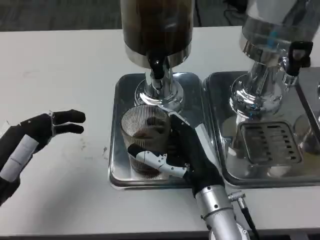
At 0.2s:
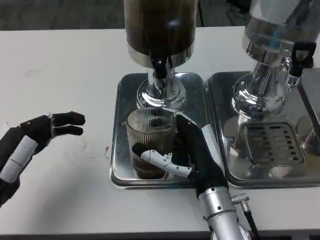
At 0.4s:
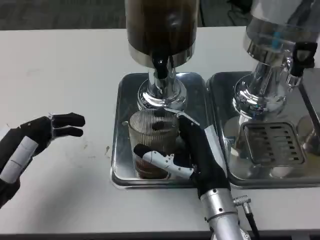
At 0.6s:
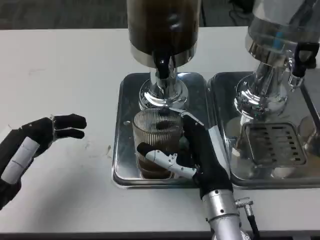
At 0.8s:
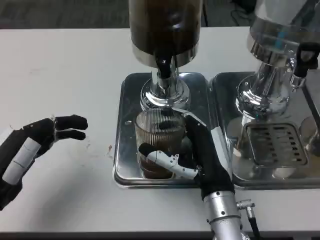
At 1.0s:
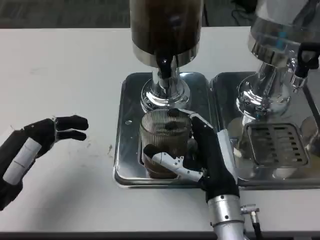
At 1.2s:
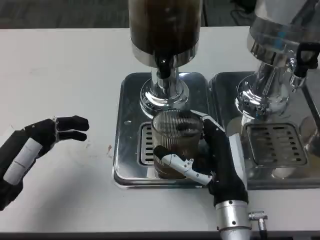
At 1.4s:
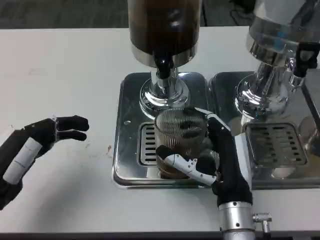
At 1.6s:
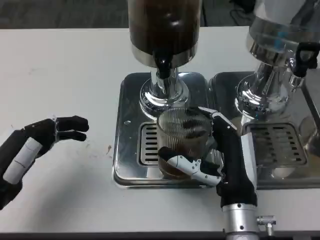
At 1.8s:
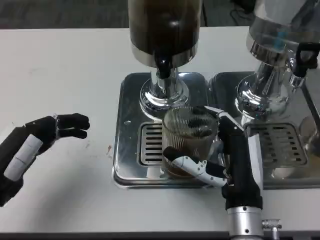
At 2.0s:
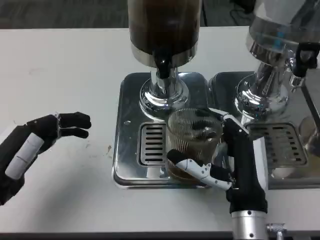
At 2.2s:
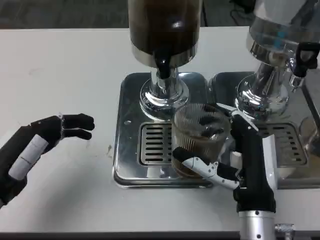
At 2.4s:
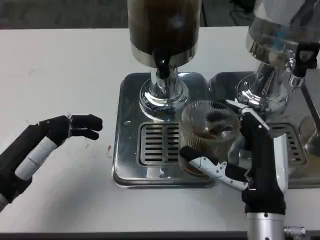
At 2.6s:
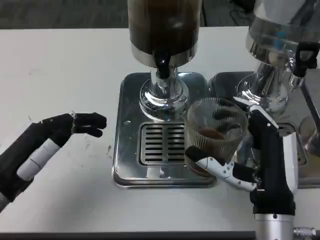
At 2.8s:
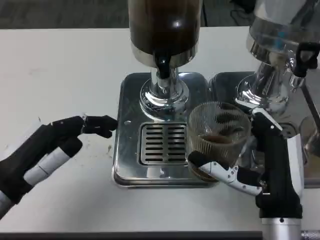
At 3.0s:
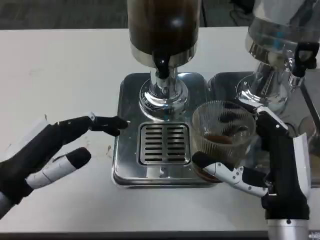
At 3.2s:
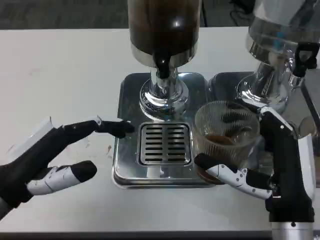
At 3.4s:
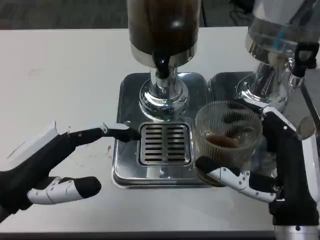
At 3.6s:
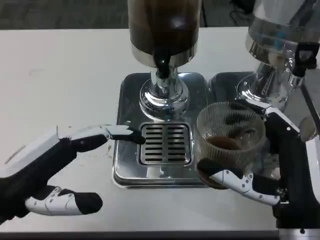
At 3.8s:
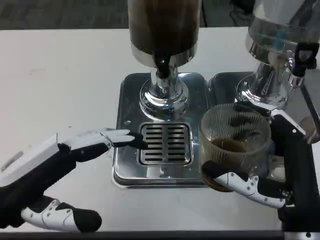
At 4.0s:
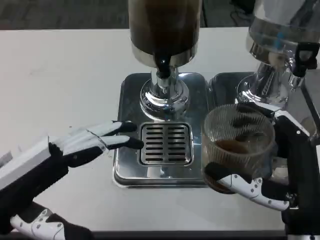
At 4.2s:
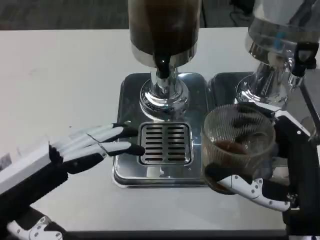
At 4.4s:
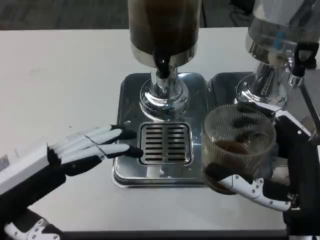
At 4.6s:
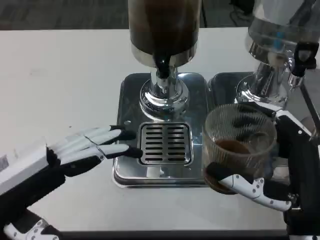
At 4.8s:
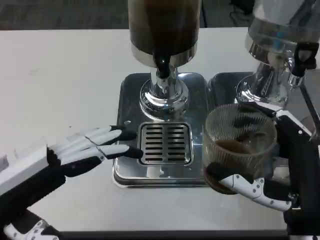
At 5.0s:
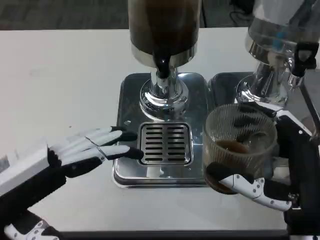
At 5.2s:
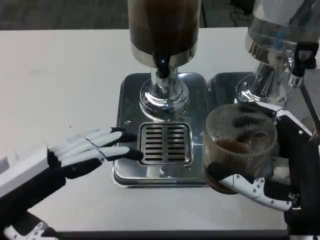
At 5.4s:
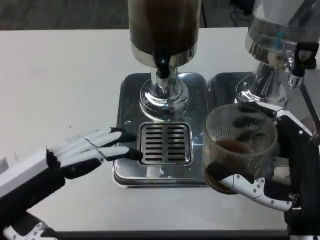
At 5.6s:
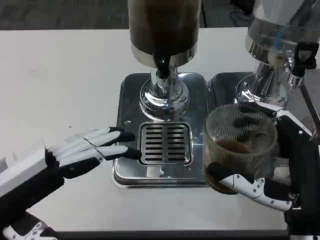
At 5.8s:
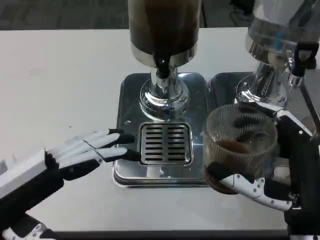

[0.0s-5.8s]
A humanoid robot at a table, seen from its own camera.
Task of the whole recording: Grasp the cup under the faucet to collect the drink, then remove the cup.
1.4s to 2.8s: The right hand shifts by approximately 5 cm.
2.8s to 4.4s: The left hand moves upward, about 5 cm.
4.4s to 5.8s: Neither hand changes place.

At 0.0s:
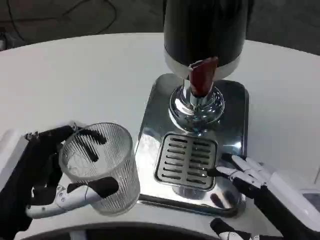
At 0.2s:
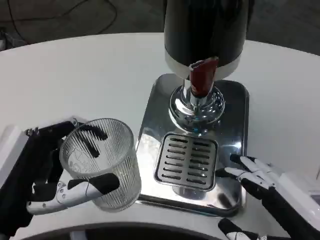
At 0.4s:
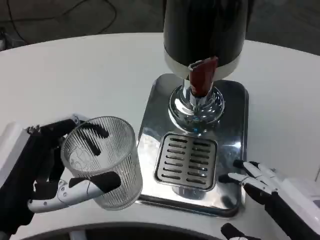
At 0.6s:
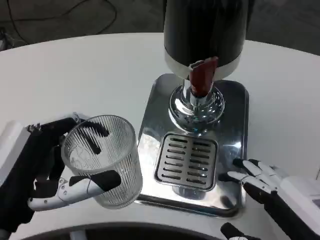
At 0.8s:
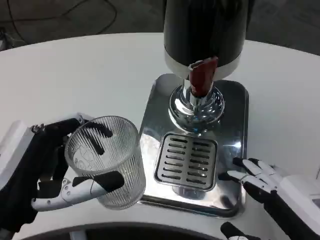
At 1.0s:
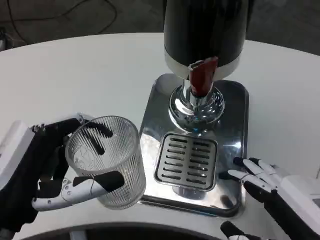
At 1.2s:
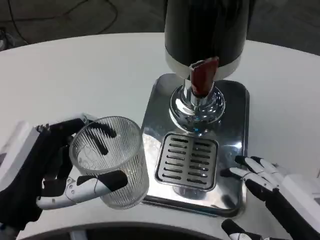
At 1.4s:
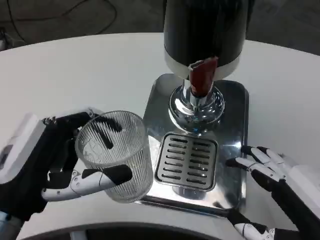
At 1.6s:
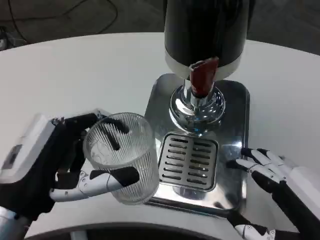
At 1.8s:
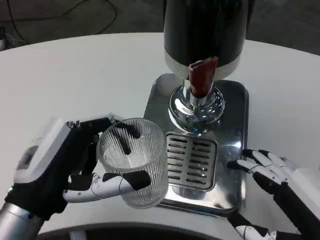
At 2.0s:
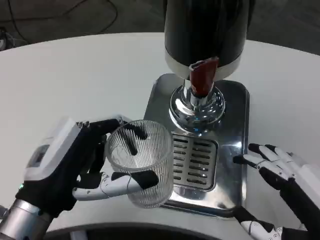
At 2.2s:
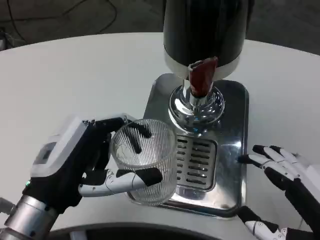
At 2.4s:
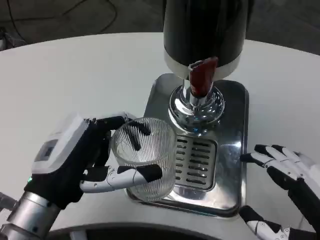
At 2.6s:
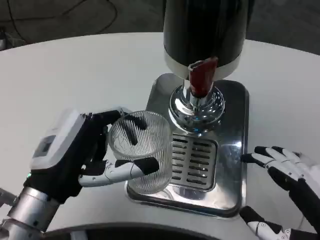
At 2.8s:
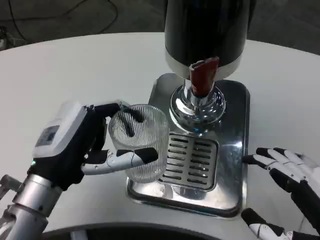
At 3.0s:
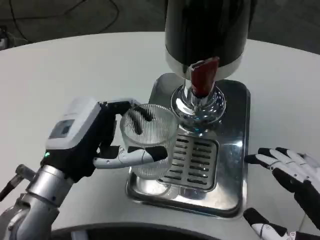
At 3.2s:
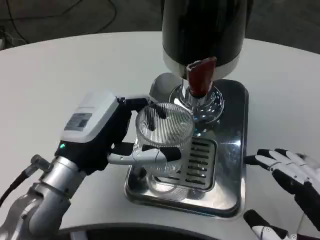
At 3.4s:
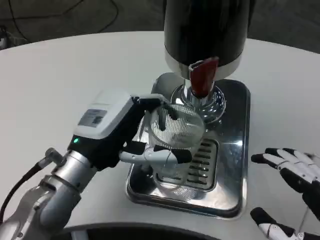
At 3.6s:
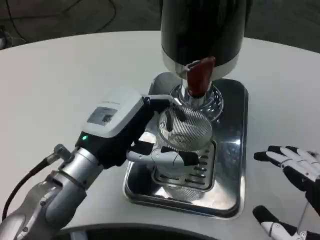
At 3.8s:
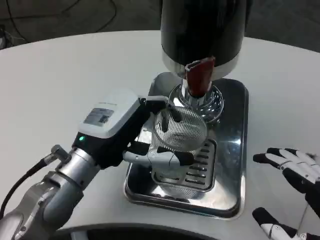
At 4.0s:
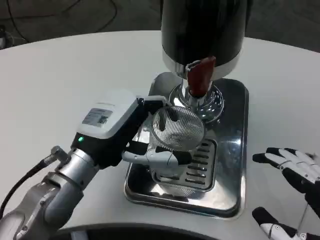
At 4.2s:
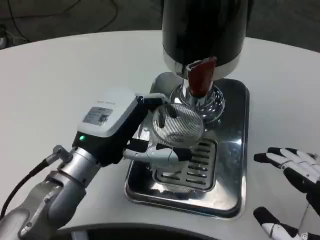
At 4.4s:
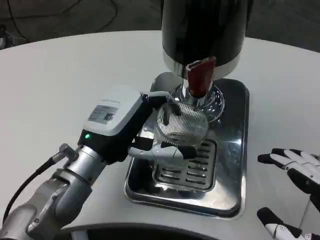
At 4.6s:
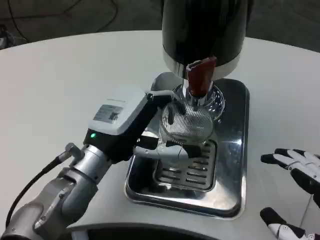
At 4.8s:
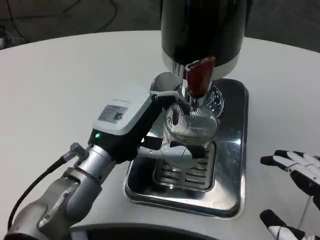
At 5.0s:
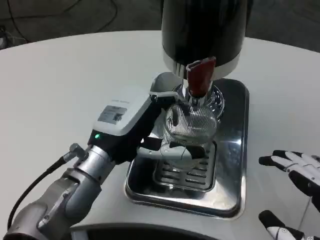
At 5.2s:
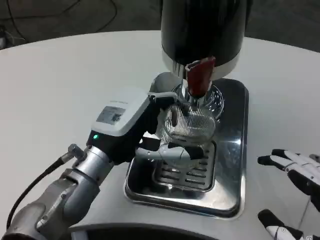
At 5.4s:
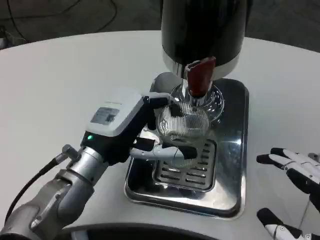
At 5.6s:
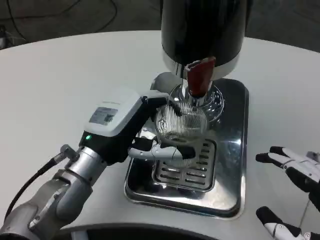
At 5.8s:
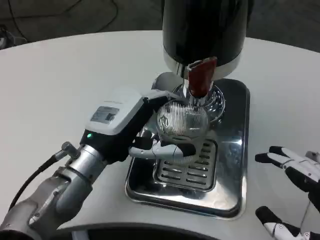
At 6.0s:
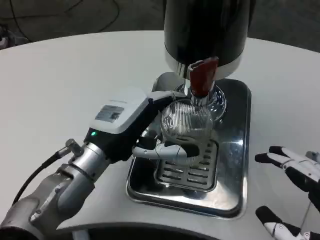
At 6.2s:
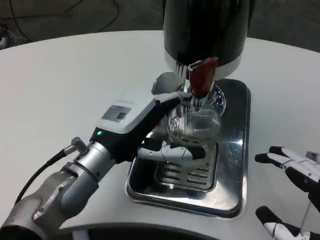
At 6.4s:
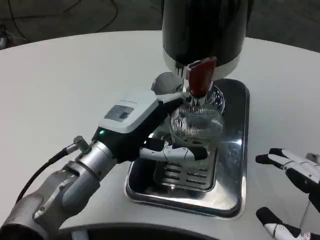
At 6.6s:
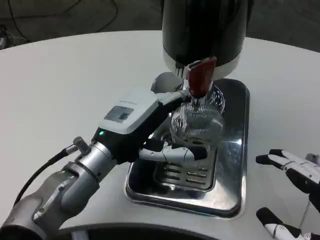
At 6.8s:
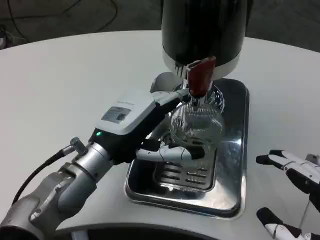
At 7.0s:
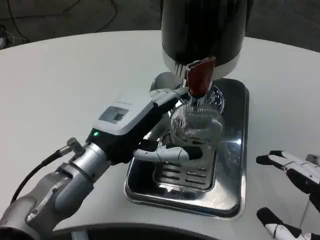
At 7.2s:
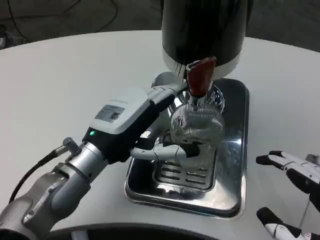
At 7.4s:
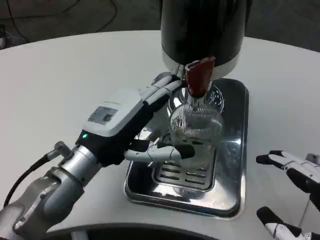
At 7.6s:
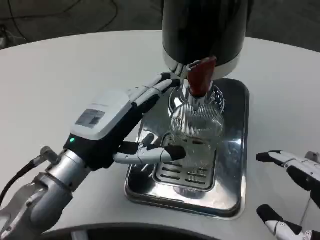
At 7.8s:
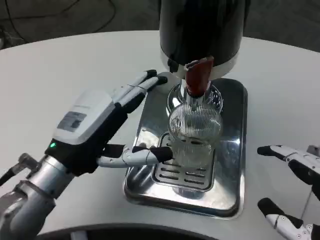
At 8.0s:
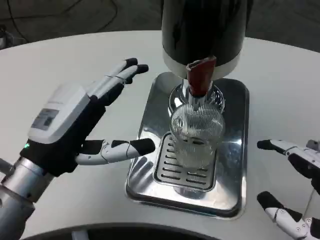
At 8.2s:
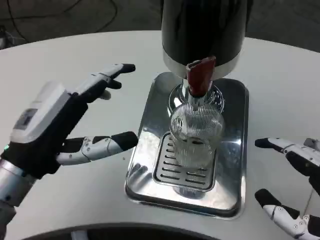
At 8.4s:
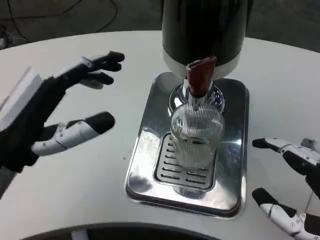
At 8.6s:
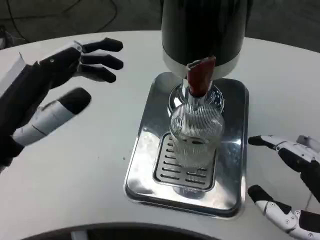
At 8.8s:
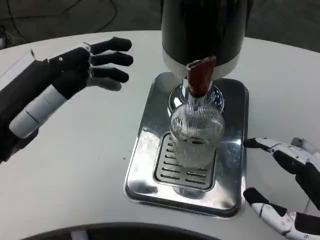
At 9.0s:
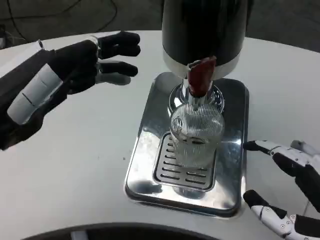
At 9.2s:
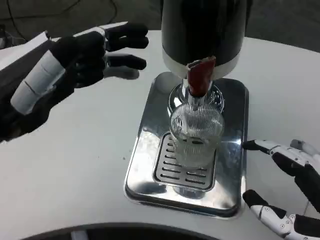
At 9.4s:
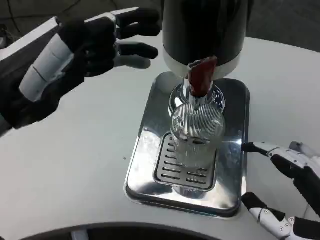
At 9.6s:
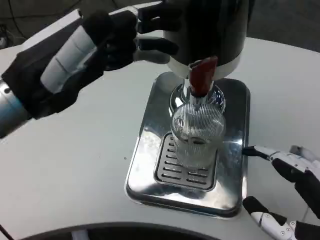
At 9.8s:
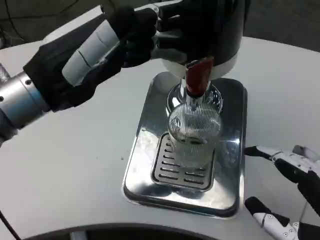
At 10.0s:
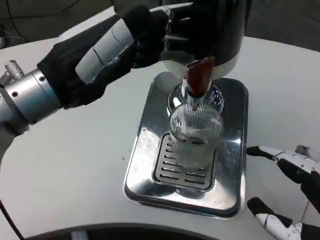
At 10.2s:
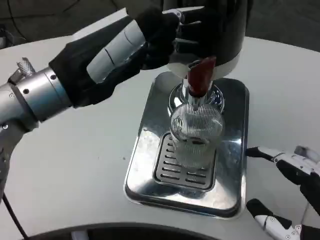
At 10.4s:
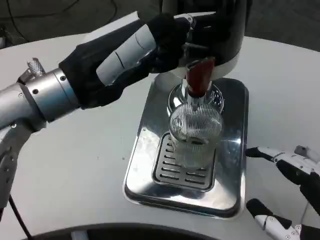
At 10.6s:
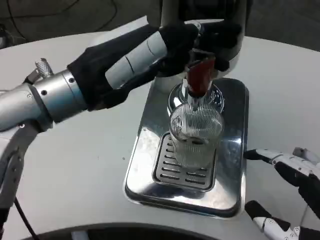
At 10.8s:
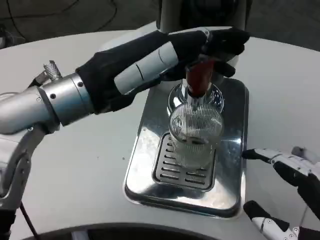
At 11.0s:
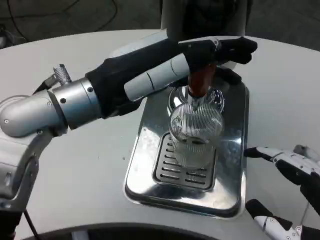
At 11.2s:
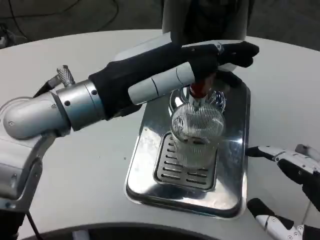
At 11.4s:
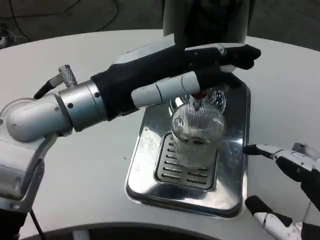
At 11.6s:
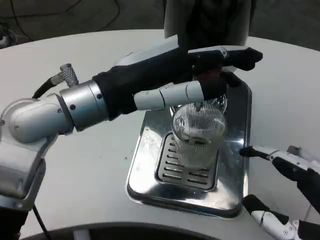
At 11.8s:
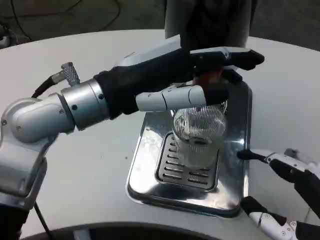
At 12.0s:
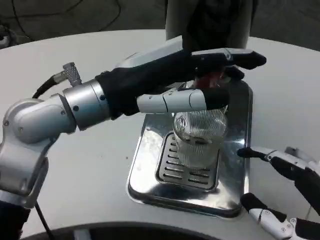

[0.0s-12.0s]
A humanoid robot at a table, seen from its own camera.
Task of the whole recording: Grasp the cup under the faucet to collect the drink, then remove the cup.
1.6s to 3.0s: The left hand moves forward, about 10 cm.
3.0s to 4.4s: The left hand ends up some 5 cm from where it was.
4.4s to 6.0s: The hands stay close to where they were, moving slightly.
7.6s to 9.0s: The left hand is displaced upward, to the left and backward by roughly 15 cm.
9.0s to 10.4s: The left hand heads to the right and forward, covering some 10 cm.

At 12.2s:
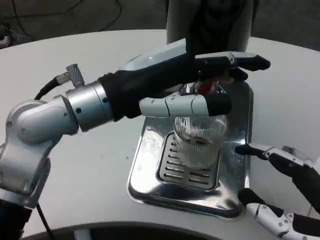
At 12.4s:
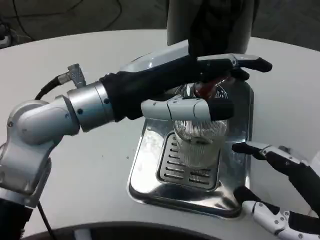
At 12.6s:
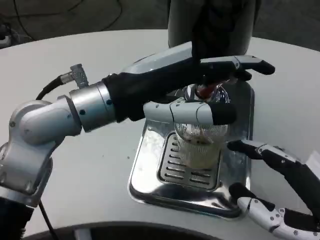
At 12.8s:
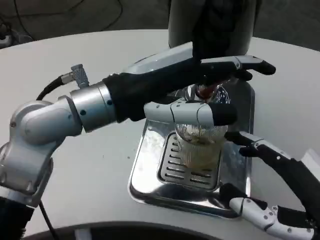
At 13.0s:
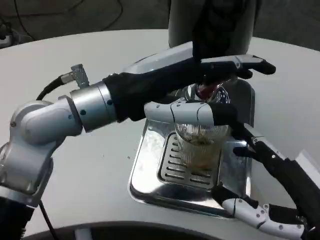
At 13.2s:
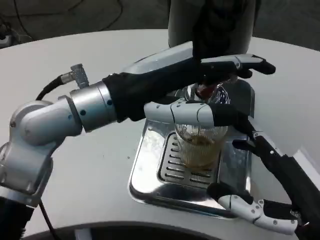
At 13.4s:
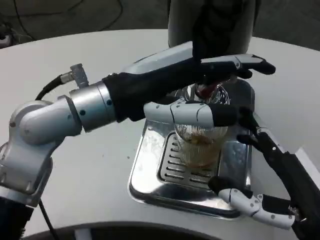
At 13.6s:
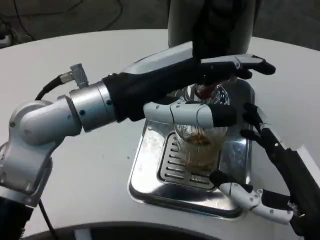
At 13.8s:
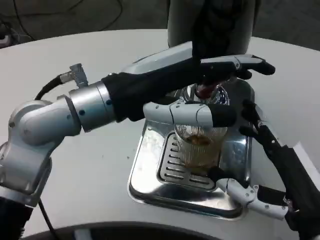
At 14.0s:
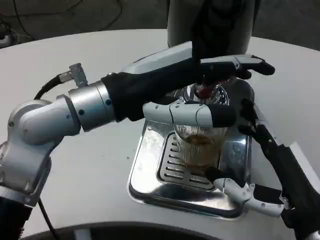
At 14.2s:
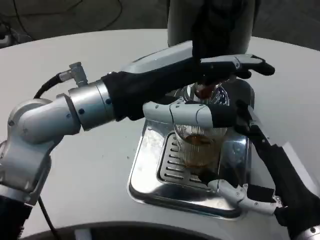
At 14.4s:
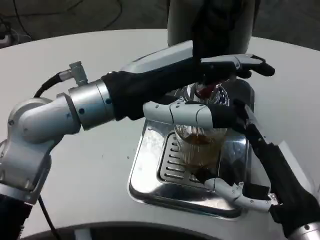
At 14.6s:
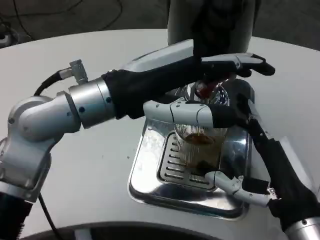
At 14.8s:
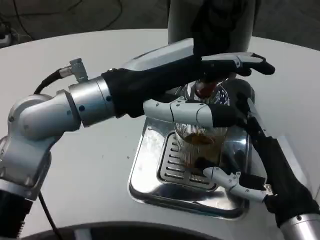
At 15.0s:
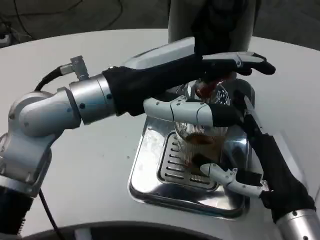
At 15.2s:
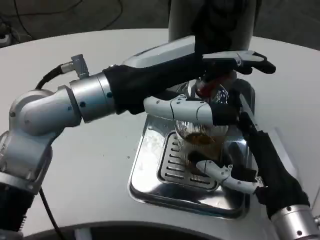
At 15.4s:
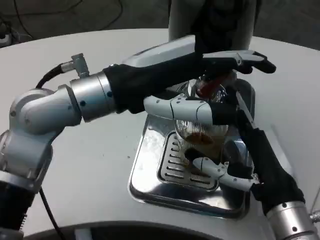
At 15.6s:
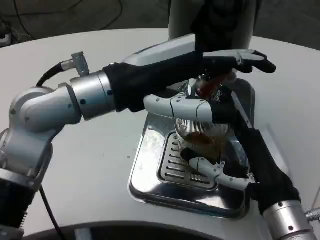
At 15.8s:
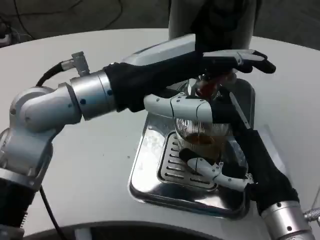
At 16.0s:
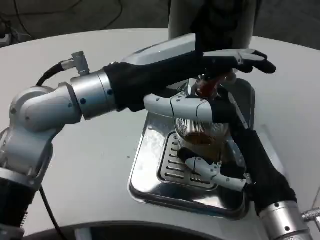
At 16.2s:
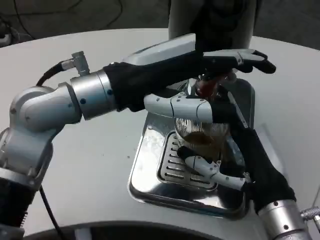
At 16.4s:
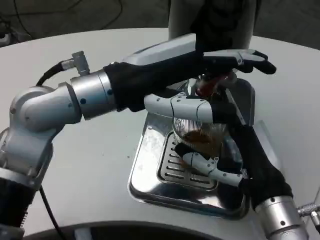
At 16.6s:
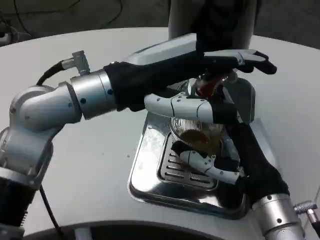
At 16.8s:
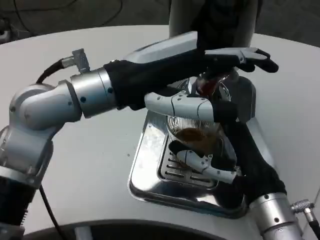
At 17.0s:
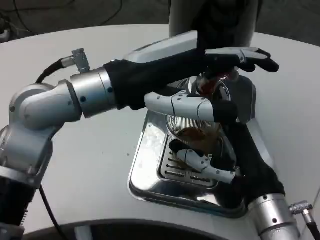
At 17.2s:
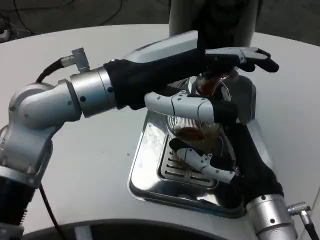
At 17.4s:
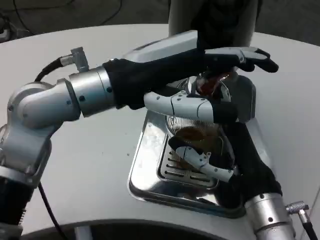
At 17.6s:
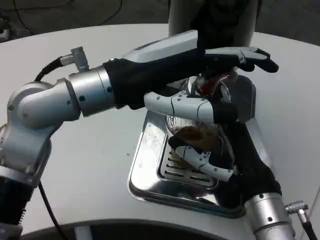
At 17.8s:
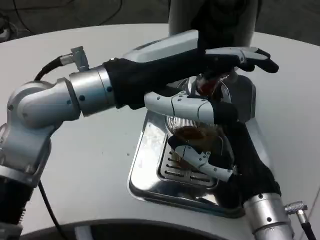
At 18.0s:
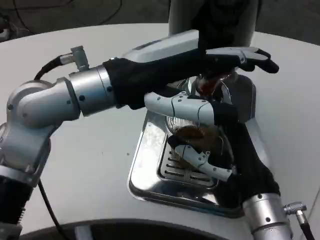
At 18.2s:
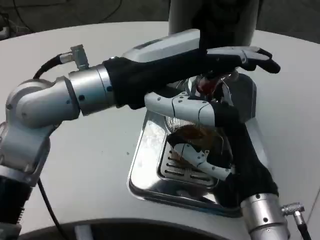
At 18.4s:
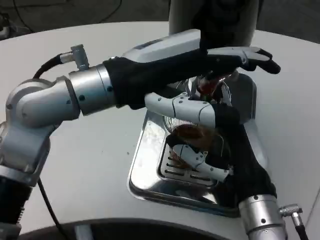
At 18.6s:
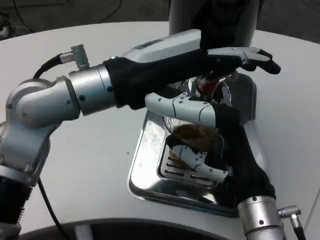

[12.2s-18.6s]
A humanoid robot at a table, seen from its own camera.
Task of the whole recording: Grasp the cup under the faucet to collect the drink, then remove the cup.
12.2s to 13.8s: The right hand heads forward, covering some 5 cm.
13.8s to 15.4s: The right hand moves forward, some 5 cm.
17.0s to 18.6s: There are only small adjustments of the hands.
